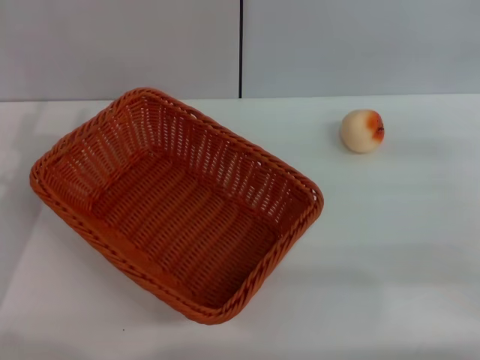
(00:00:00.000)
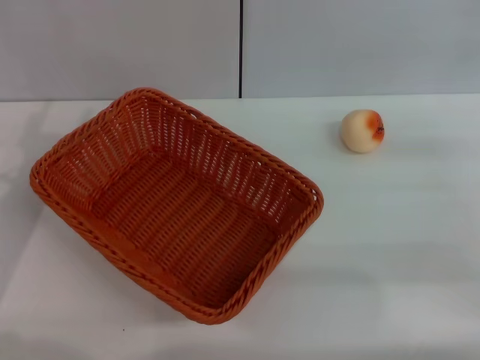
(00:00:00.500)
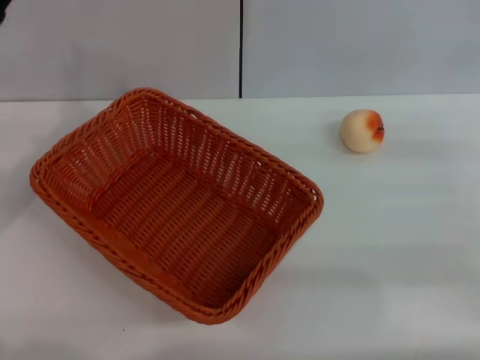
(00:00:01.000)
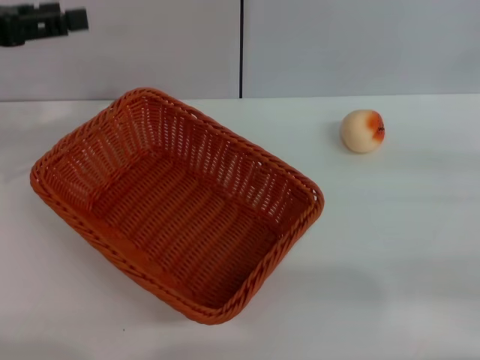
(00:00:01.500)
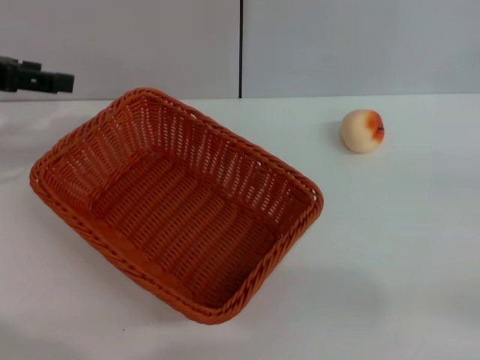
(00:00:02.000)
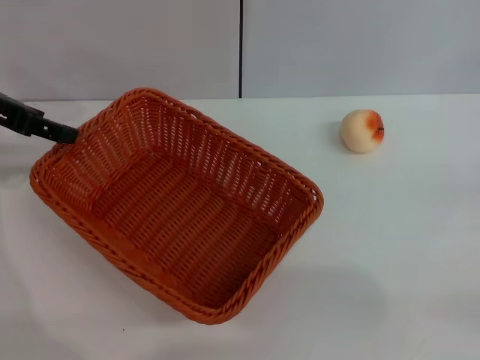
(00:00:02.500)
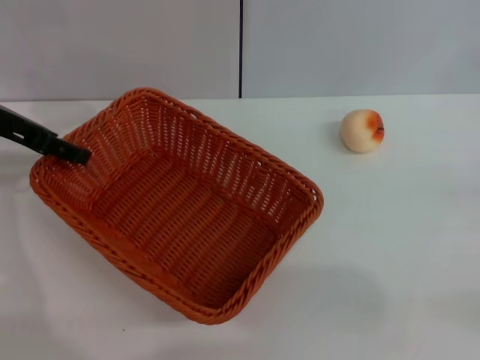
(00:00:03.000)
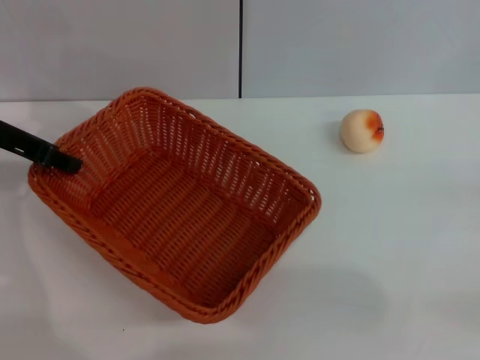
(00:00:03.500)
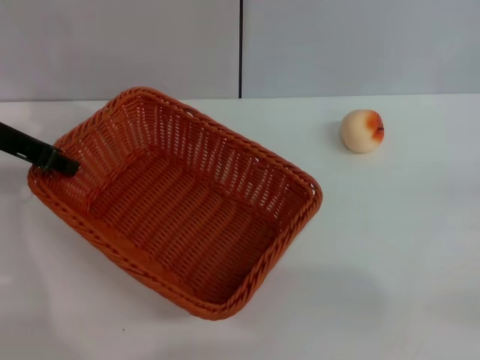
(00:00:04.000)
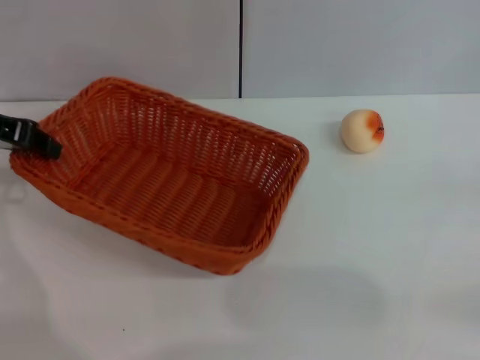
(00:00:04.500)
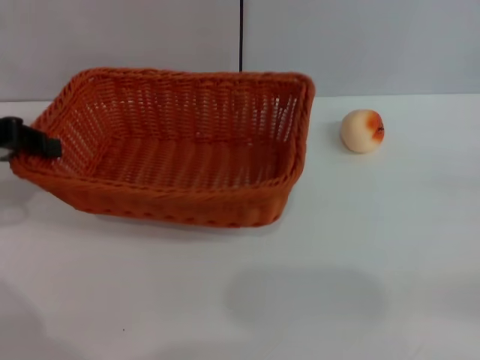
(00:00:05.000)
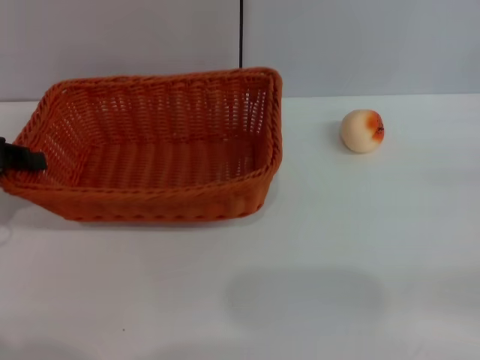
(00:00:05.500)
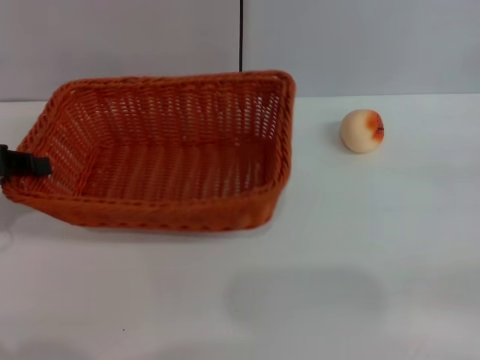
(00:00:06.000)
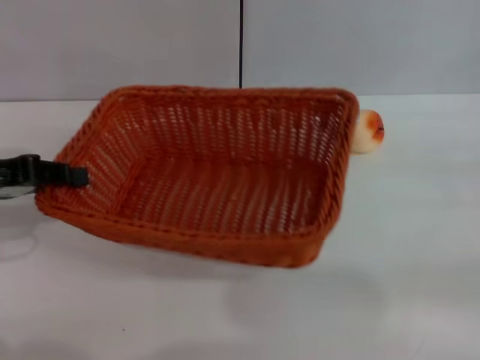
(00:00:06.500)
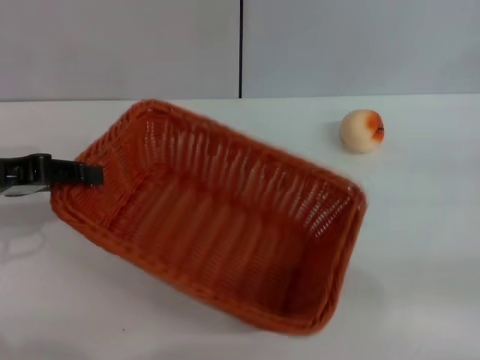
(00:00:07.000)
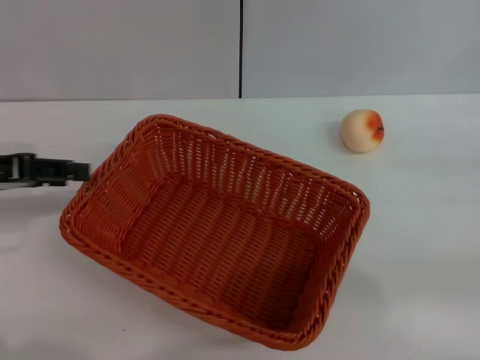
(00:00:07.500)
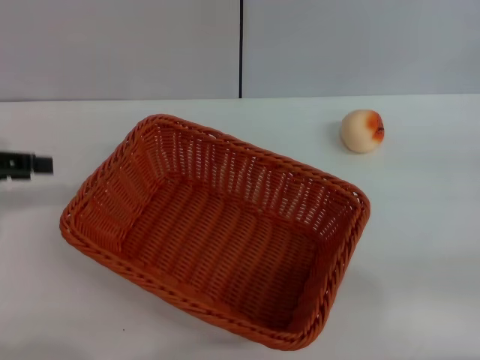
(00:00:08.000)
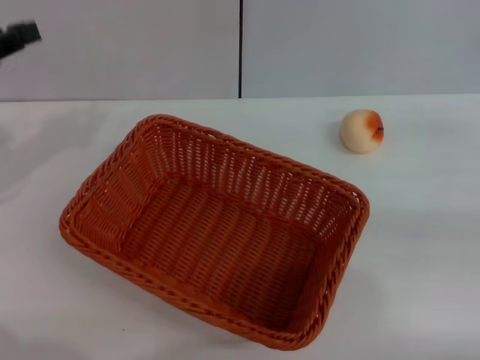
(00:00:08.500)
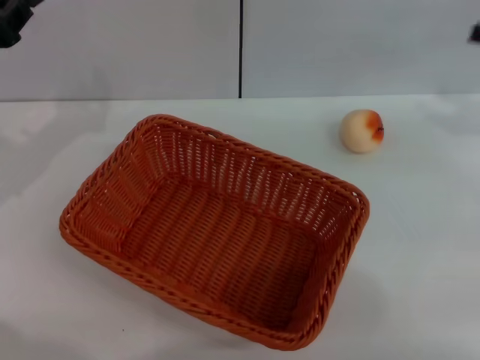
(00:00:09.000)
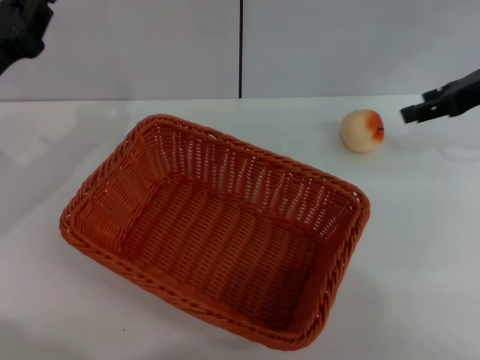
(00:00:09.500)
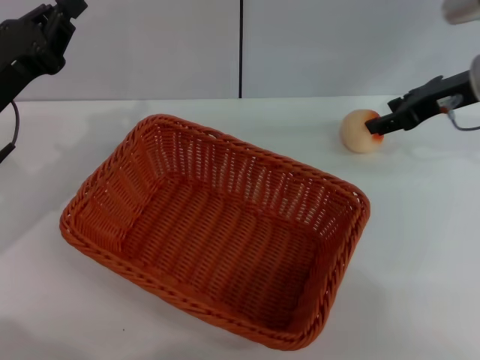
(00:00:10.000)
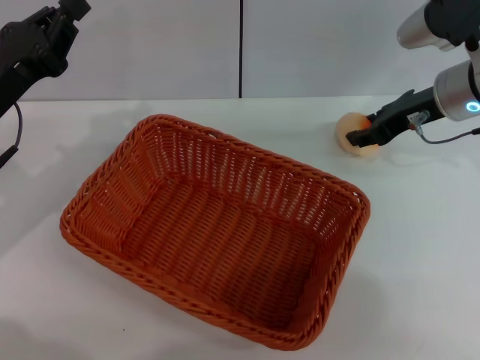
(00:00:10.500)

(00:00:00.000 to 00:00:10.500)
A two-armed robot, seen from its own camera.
Step, 00:00:00.000 - 00:00:07.500: Move the basket to the center of view with the left gripper.
00:00:00.000 - 00:00:02.000: The left gripper is displaced upward and forward by about 15 cm.
00:00:02.000 - 00:00:04.000: The left gripper moves about 5 cm, and closes its fingers.
00:00:04.000 - 00:00:06.500: The left gripper heads backward, covering approximately 10 cm.
00:00:06.500 - 00:00:08.500: The right gripper moves approximately 5 cm.
00:00:08.500 - 00:00:10.500: The right gripper heads to the left and forward, covering approximately 20 cm. The left gripper shifts roughly 10 cm downward and to the right, and closes.

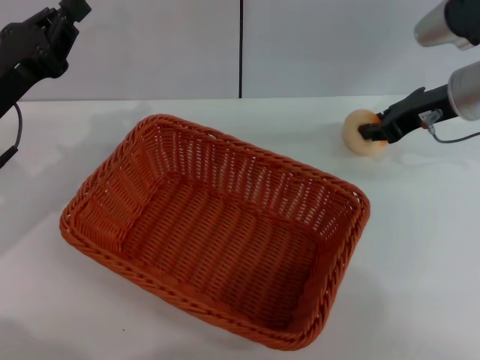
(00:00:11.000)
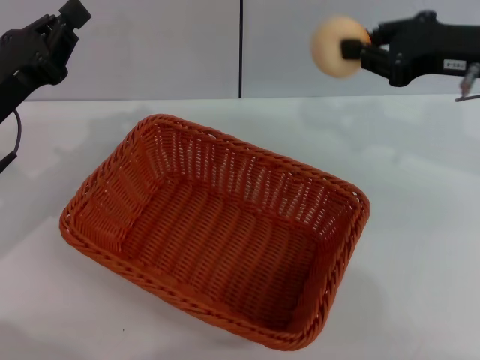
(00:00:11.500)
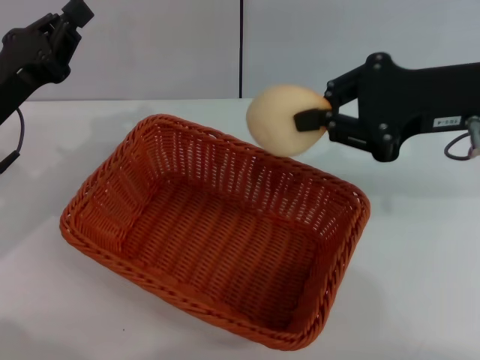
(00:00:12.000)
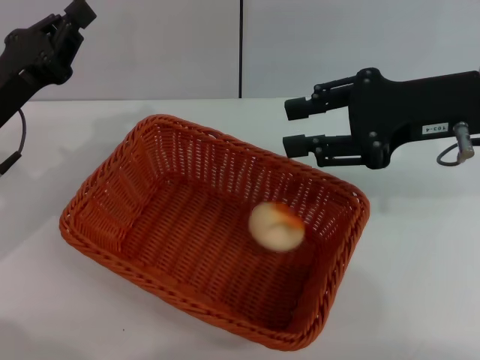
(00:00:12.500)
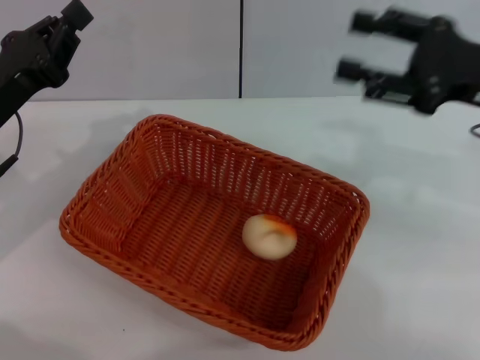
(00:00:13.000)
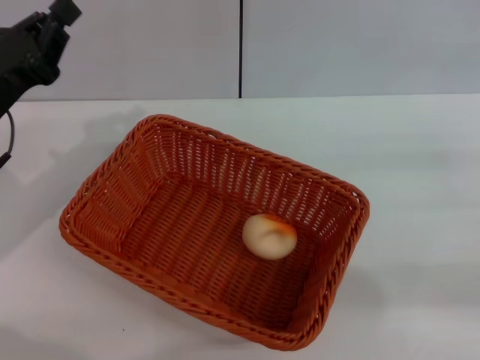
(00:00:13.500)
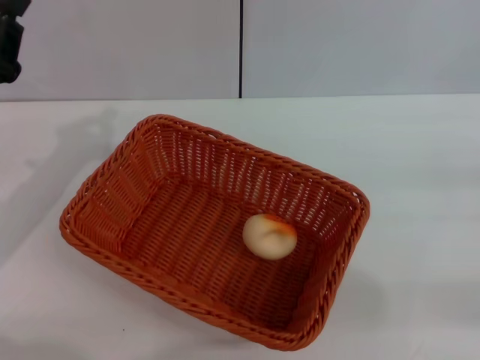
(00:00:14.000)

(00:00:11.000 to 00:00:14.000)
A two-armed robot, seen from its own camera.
Step, 00:00:11.500 - 00:00:12.500: Place the egg yolk pastry into the basket with the right gripper.
00:00:11.000 - 00:00:12.500: The right gripper goes approximately 10 cm backward and upward.
00:00:12.500 - 00:00:14.000: The right gripper goes some 25 cm to the right, backward and downward, and opens up.

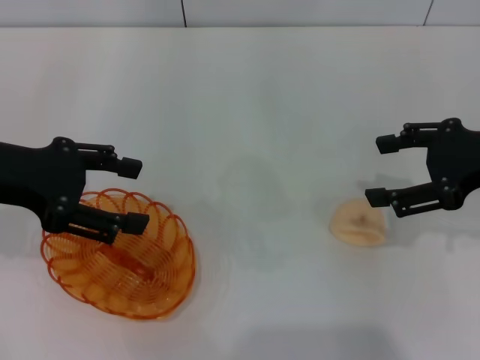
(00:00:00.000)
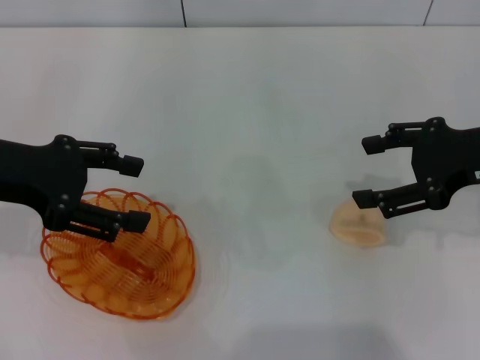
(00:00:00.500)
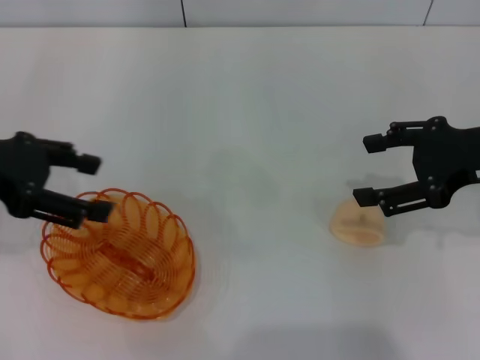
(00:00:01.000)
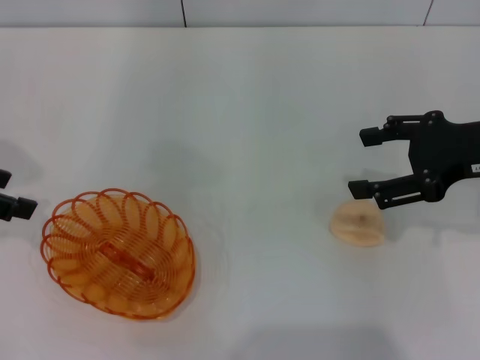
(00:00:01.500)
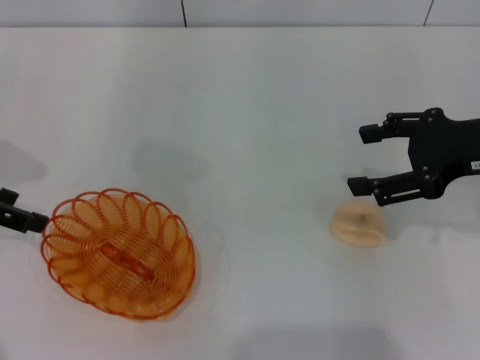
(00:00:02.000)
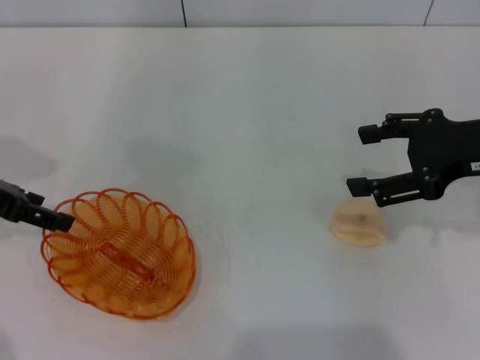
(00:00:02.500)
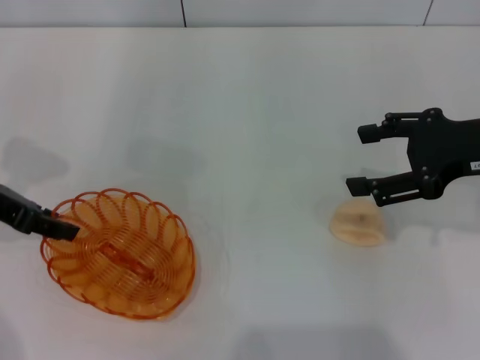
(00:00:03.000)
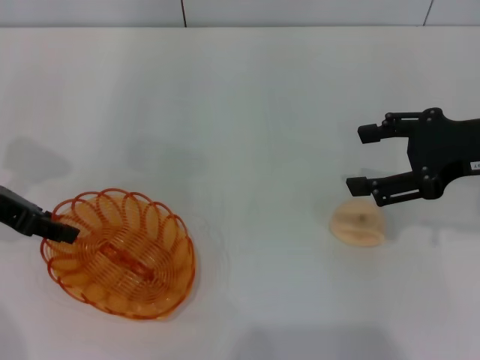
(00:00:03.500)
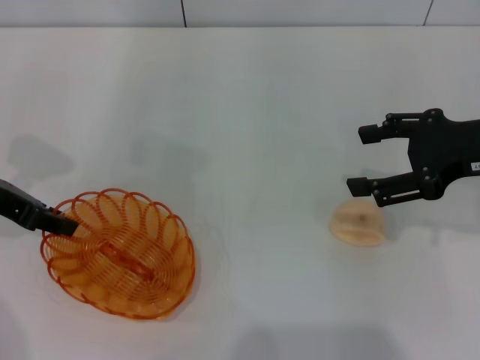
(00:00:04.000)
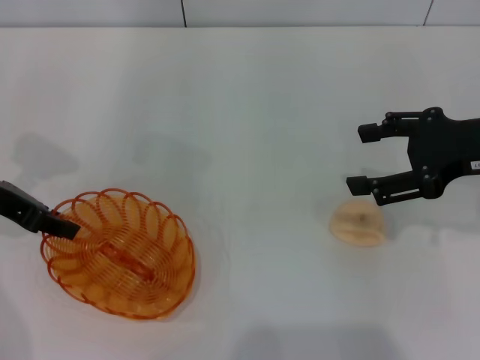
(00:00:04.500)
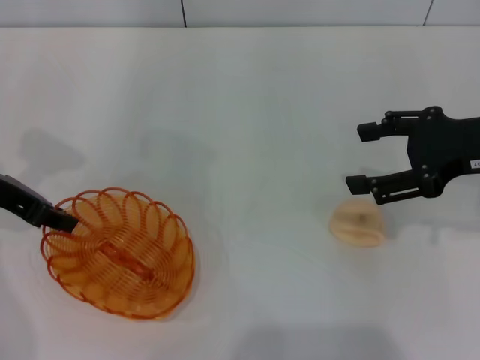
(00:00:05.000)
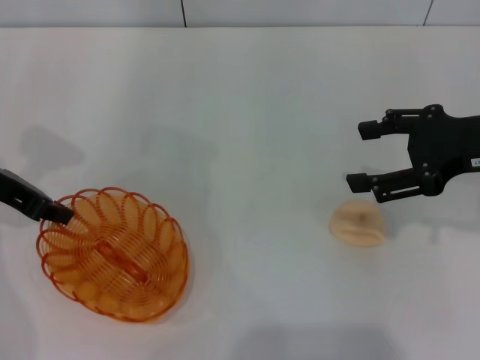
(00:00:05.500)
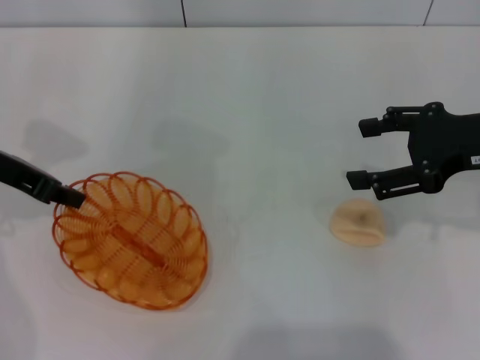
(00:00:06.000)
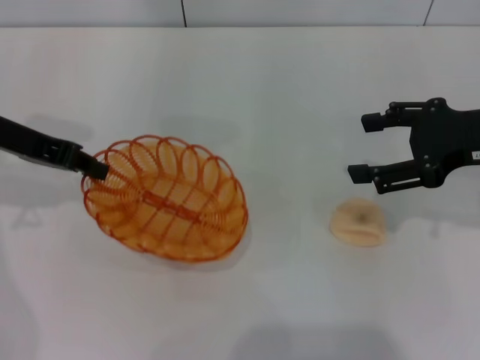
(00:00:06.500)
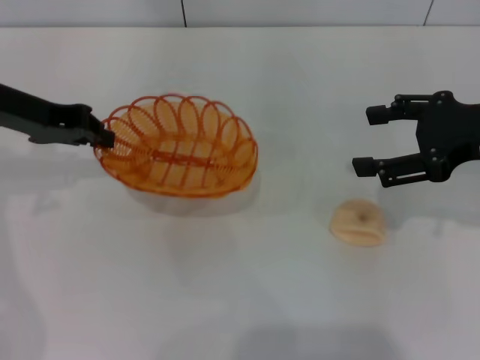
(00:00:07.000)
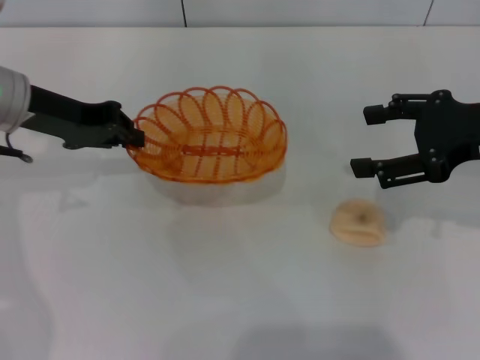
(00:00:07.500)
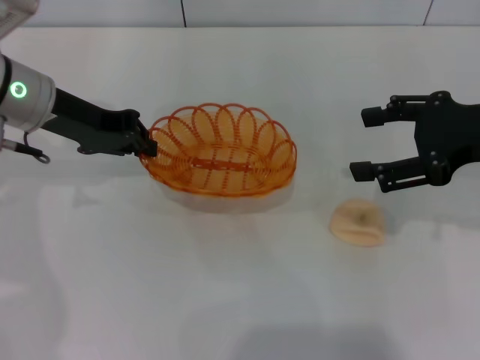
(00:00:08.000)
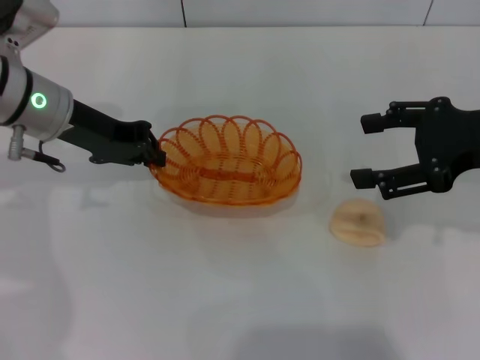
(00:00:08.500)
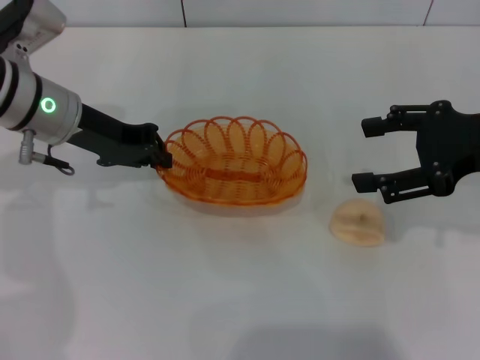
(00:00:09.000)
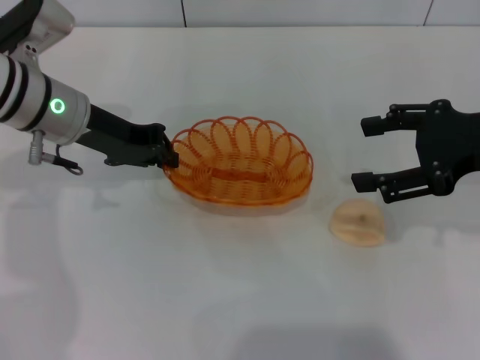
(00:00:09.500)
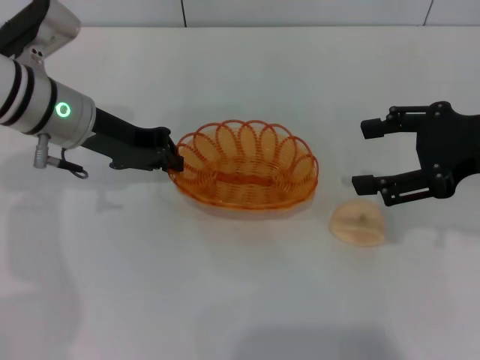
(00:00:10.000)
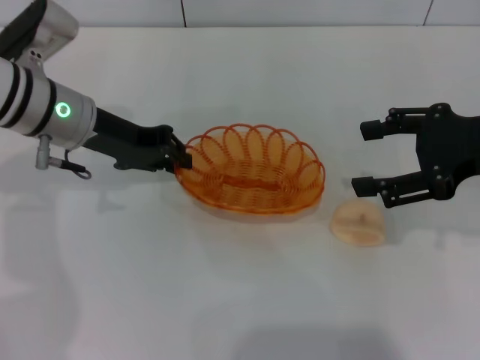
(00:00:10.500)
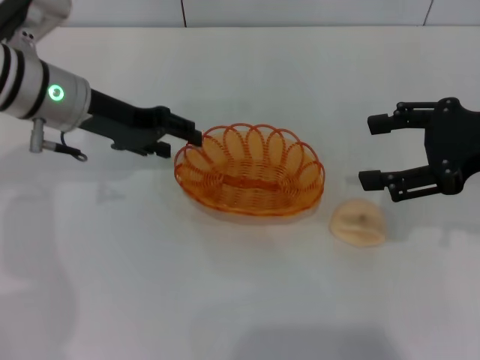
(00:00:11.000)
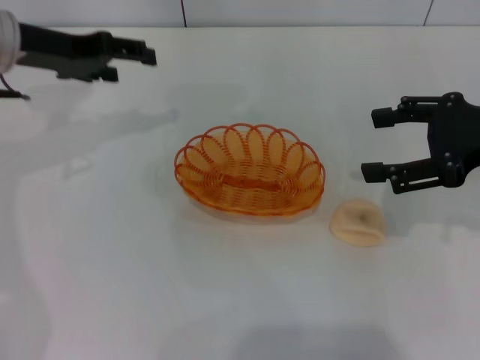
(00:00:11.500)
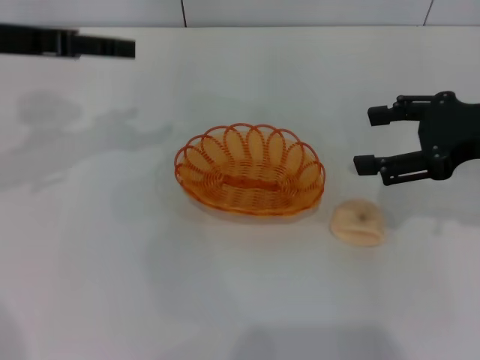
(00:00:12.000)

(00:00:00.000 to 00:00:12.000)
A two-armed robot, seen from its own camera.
Step, 00:00:00.000 - 00:00:06.000: Pick up the basket with the left gripper.
Step, 00:00:07.000 - 00:00:11.000: Place the basket in the center of view with the left gripper.
00:00:00.000 - 00:00:02.000: The left gripper heads to the left, covering roughly 5 cm.
00:00:02.000 - 00:00:04.000: The left gripper moves approximately 5 cm, and closes its fingers.
00:00:04.000 - 00:00:06.000: The grippers make only small movements.
00:00:06.000 - 00:00:08.000: The left gripper moves to the right, about 5 cm.
00:00:08.000 - 00:00:10.000: The grippers move only a little.
00:00:10.000 - 00:00:12.000: The left gripper travels upward and to the left by roughly 10 cm, and opens up.
